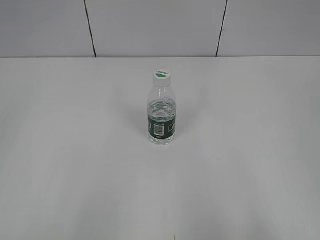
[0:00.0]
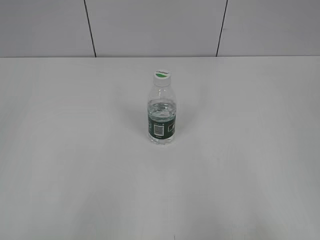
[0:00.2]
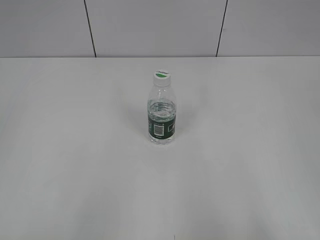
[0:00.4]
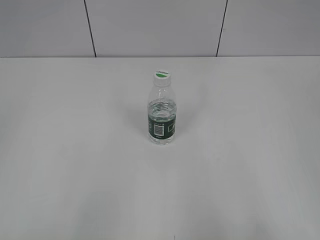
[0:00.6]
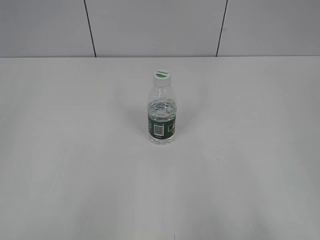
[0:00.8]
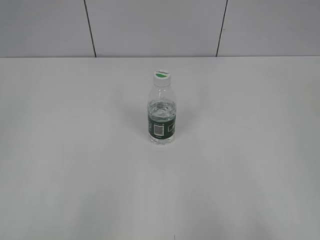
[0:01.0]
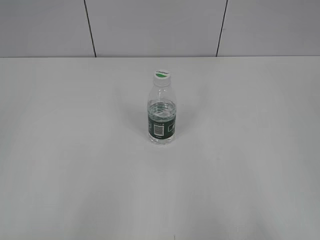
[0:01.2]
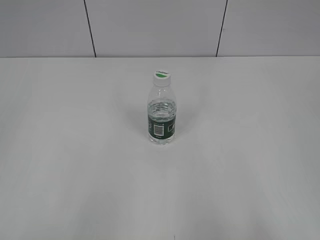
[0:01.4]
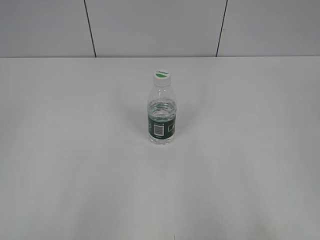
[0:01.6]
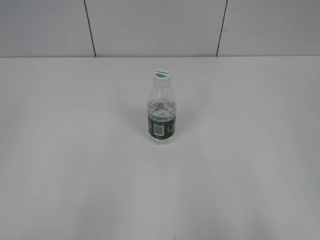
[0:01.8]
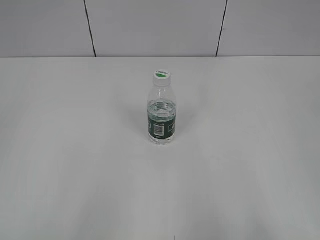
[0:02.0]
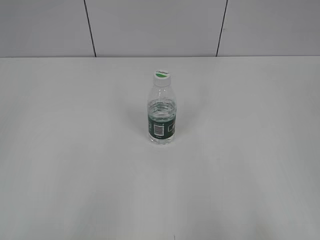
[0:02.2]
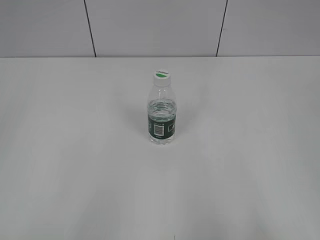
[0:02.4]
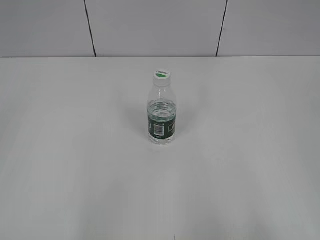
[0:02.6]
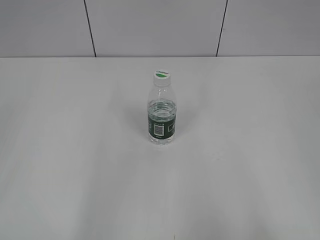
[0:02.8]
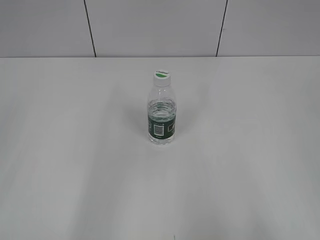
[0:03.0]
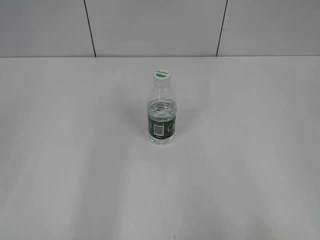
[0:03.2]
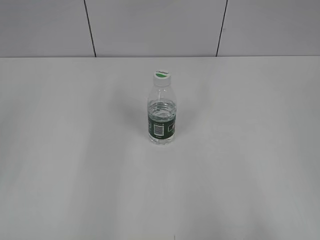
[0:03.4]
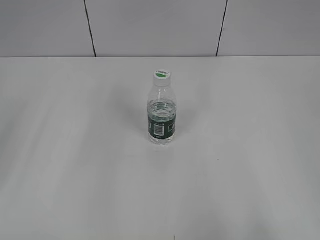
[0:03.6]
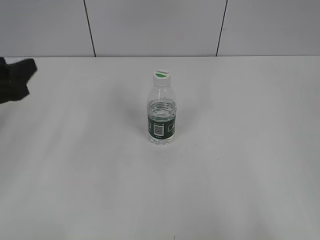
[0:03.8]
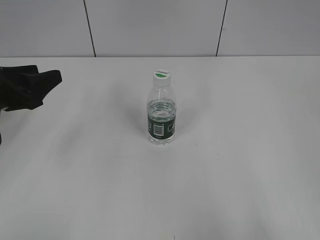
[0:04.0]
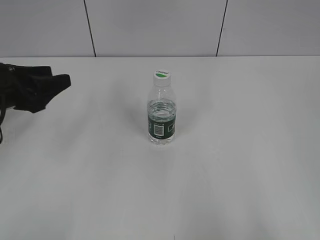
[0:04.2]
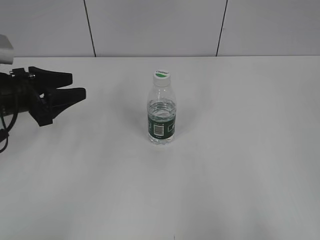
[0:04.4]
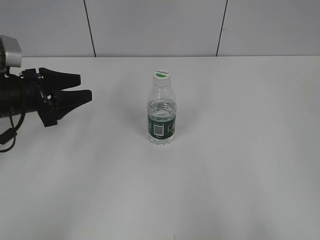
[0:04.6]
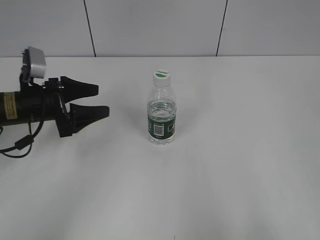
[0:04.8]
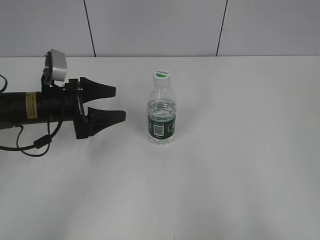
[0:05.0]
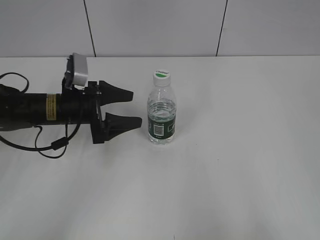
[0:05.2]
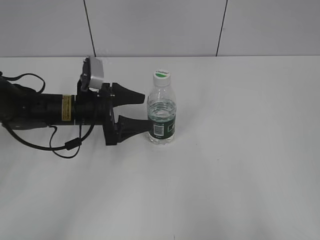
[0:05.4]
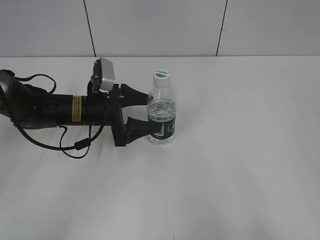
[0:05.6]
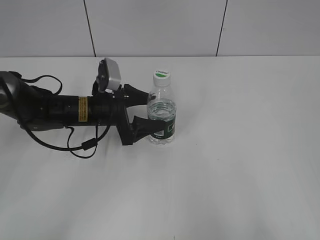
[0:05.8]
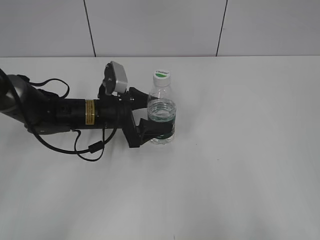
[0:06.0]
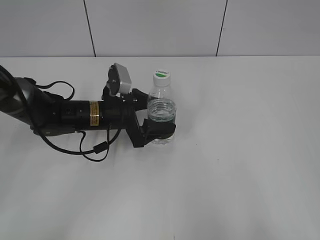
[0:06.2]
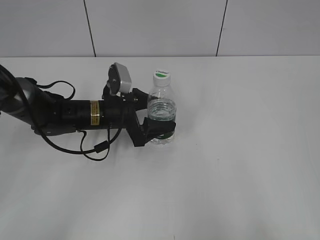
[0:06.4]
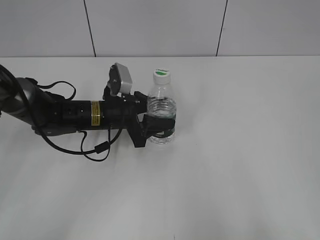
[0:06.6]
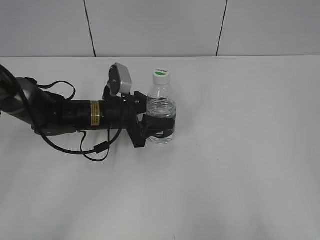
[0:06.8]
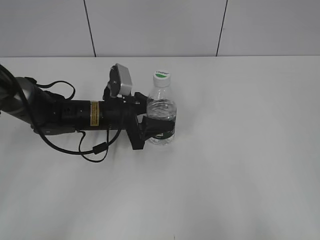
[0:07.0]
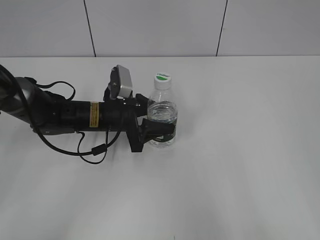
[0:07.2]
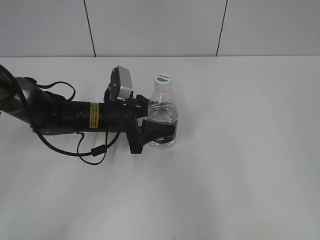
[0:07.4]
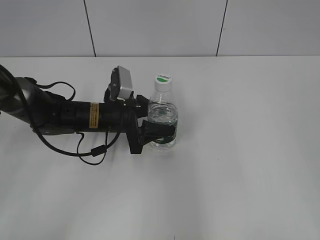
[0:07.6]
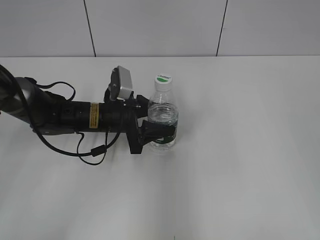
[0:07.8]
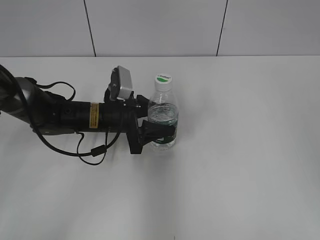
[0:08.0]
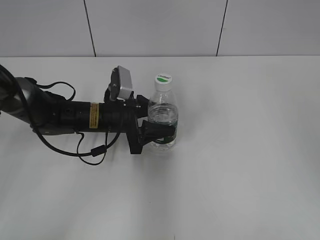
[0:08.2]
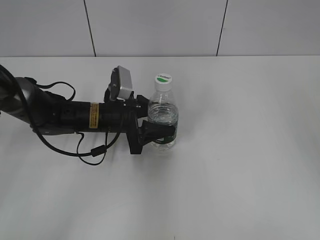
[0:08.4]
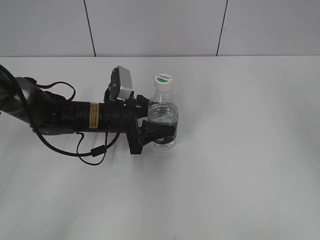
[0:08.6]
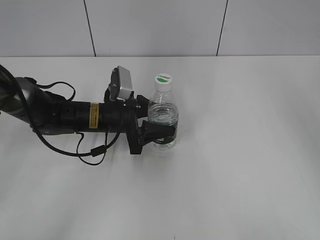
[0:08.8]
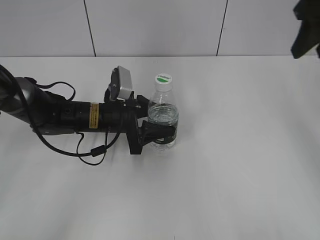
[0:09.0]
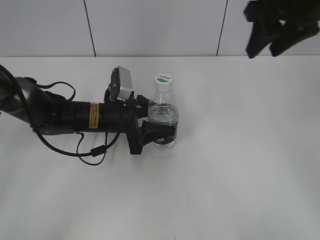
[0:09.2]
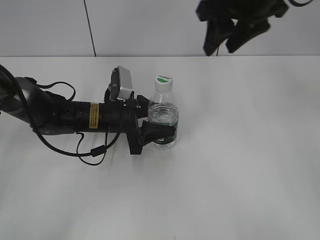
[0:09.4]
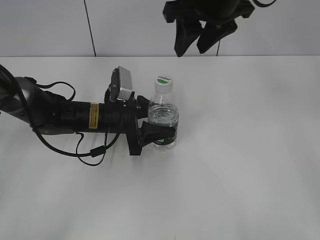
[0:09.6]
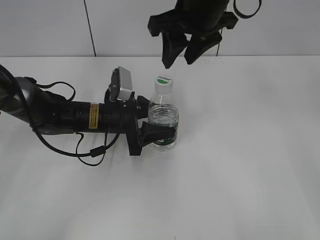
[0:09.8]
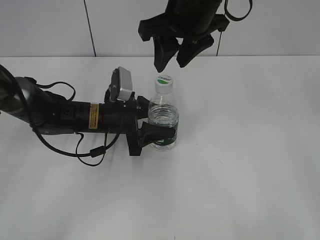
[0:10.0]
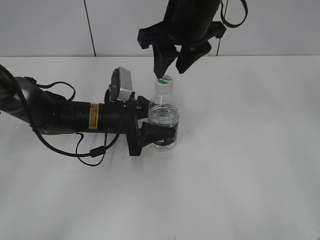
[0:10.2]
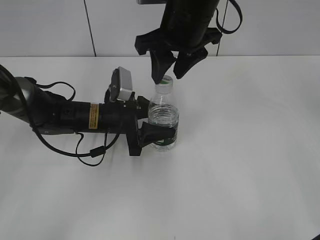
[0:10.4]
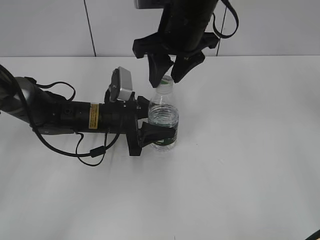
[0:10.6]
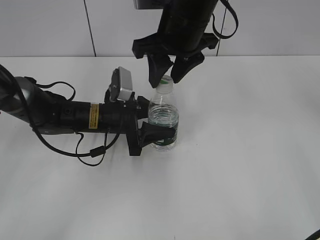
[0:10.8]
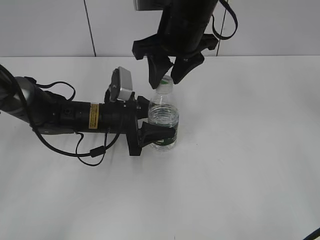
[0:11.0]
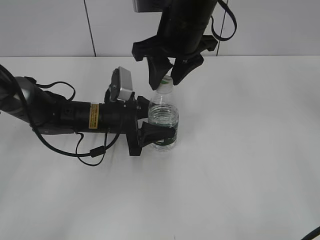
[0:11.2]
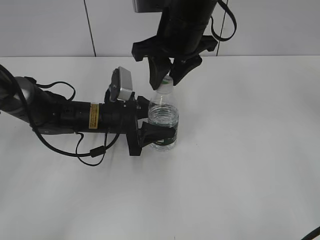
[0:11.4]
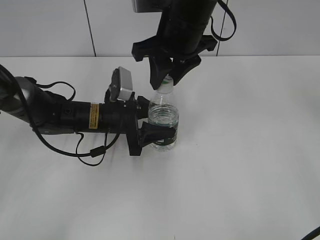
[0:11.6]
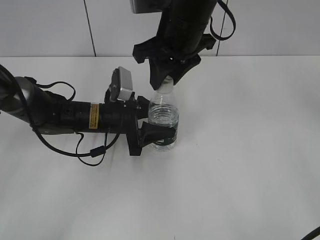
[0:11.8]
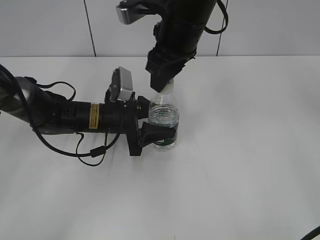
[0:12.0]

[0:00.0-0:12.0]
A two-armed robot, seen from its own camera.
Step, 0:00.0 to 0:07.8: Grasp the bottle and move it to the center of the table with the left gripper.
0:03.0 to 0:04.4: The left gripper heads forward and downward, covering roughly 25 cm.
0:04.4 to 0:06.0: The left gripper heads to the right and downward, covering approximately 15 cm, and opens up.
0:06.0 to 0:07.6: The right gripper shifts about 10 cm forward. The left gripper closes its fingers.
0:07.6 to 0:09.0: The right gripper is displaced forward by some 25 cm, and closes up.
0:09.0 to 0:10.4: The right gripper heads to the left, covering roughly 20 cm.

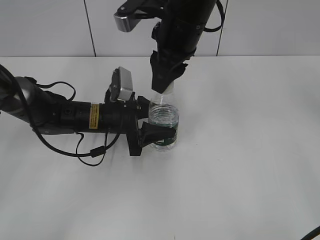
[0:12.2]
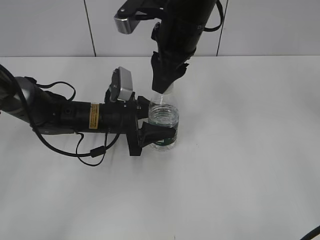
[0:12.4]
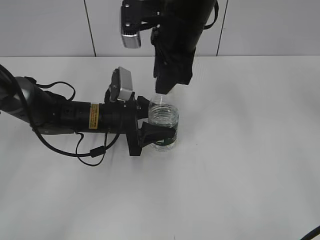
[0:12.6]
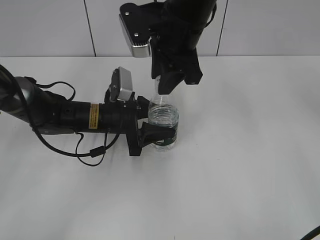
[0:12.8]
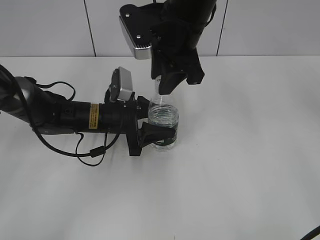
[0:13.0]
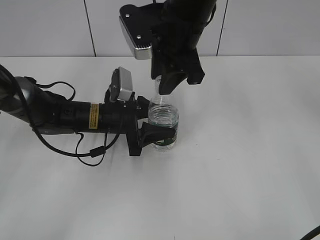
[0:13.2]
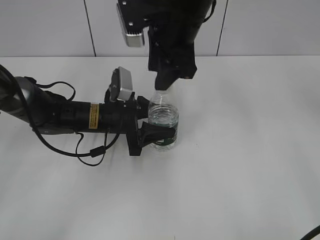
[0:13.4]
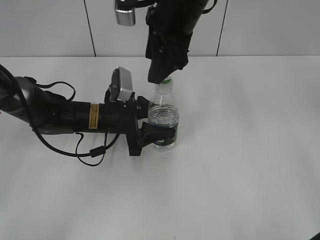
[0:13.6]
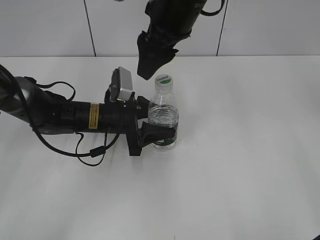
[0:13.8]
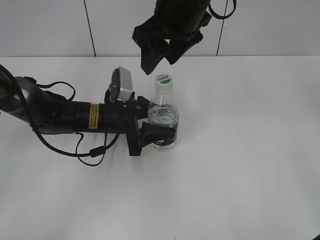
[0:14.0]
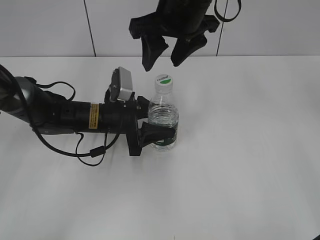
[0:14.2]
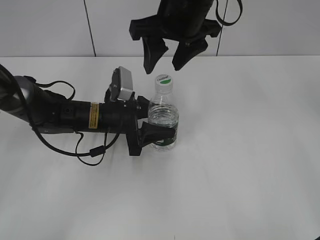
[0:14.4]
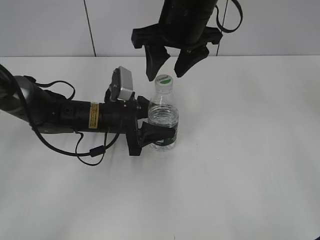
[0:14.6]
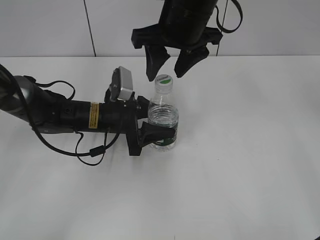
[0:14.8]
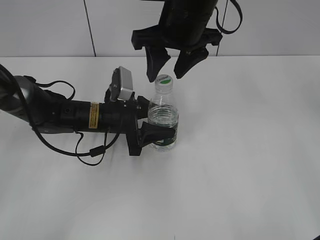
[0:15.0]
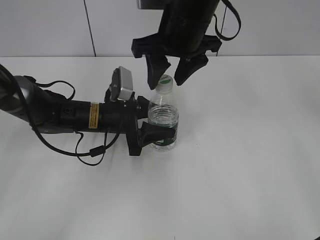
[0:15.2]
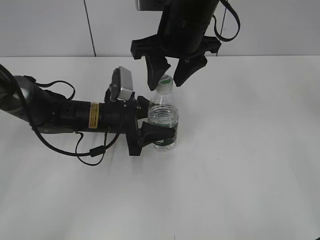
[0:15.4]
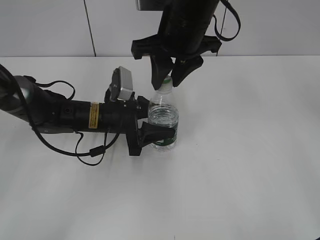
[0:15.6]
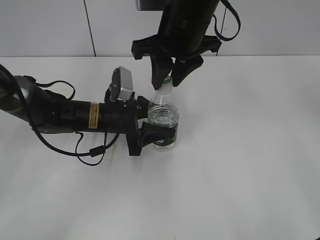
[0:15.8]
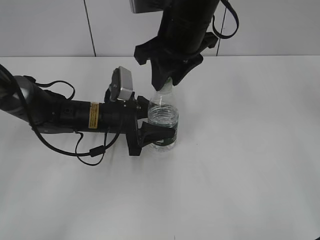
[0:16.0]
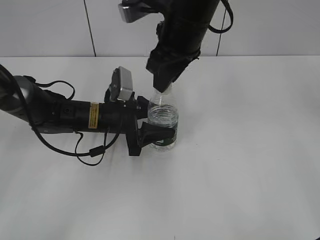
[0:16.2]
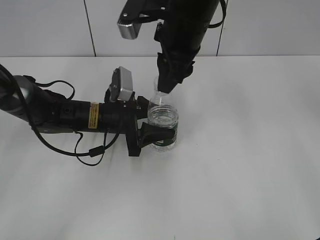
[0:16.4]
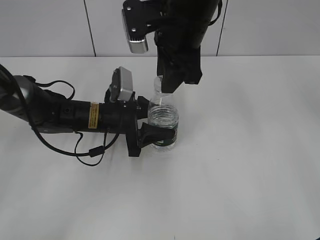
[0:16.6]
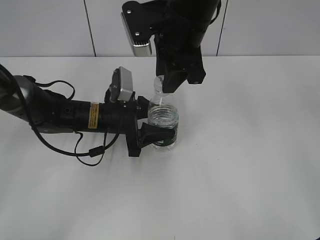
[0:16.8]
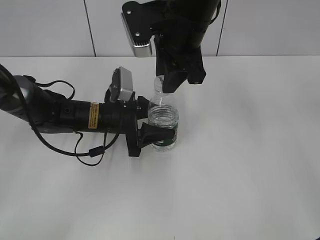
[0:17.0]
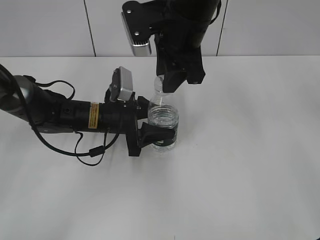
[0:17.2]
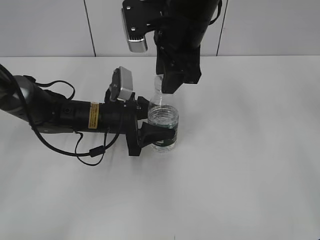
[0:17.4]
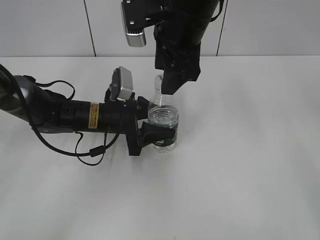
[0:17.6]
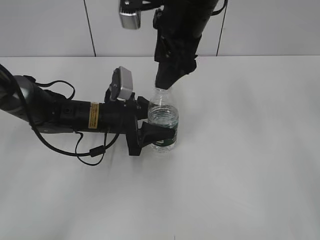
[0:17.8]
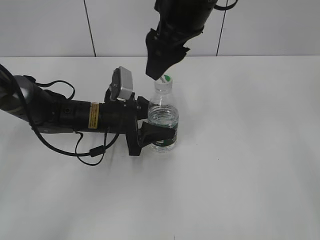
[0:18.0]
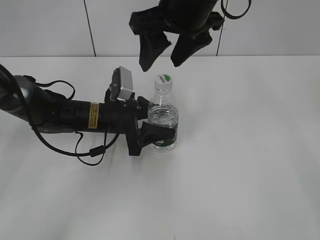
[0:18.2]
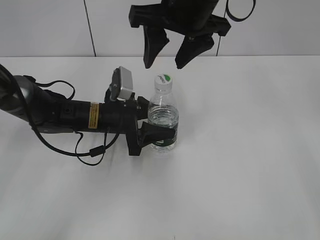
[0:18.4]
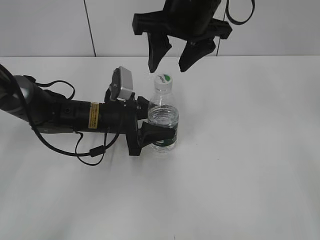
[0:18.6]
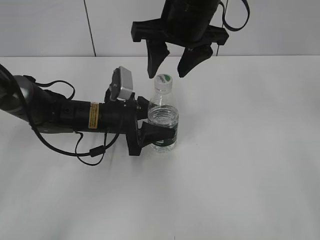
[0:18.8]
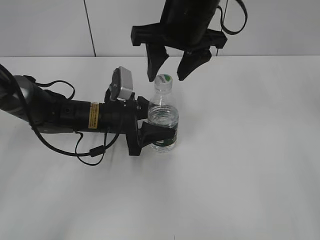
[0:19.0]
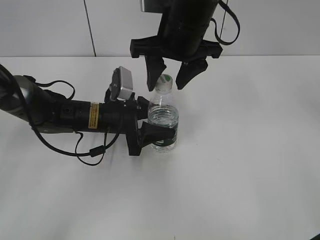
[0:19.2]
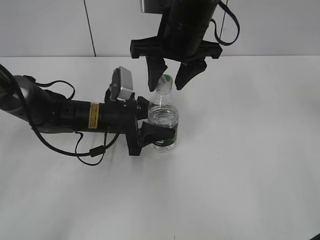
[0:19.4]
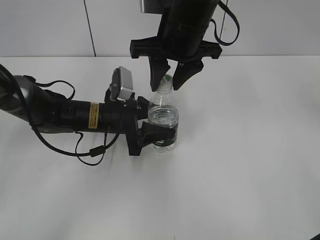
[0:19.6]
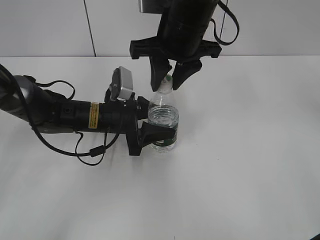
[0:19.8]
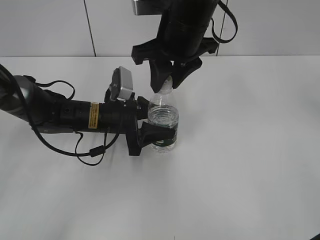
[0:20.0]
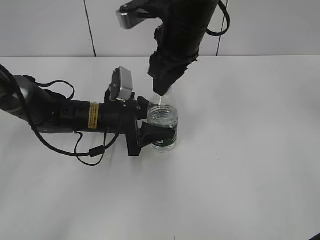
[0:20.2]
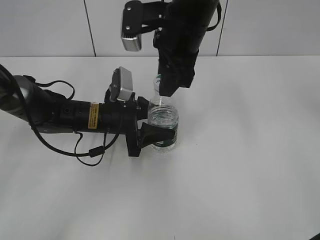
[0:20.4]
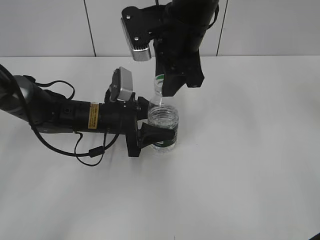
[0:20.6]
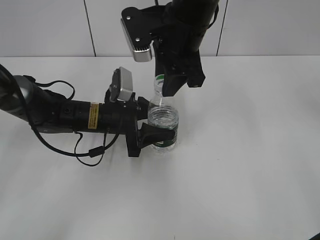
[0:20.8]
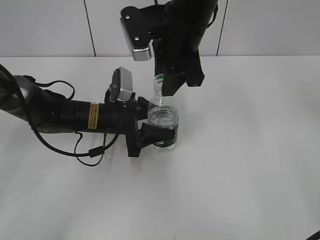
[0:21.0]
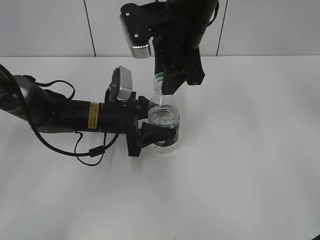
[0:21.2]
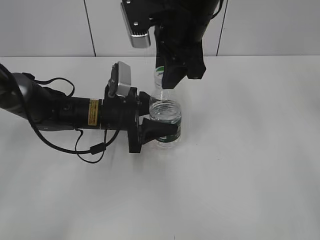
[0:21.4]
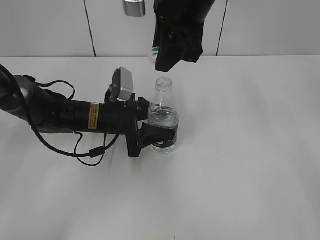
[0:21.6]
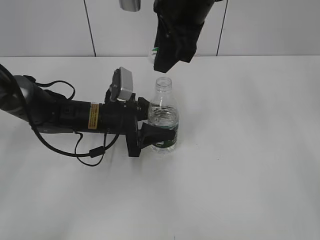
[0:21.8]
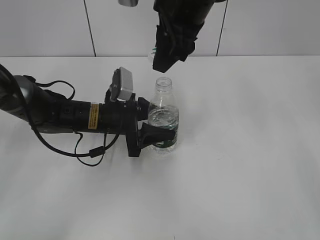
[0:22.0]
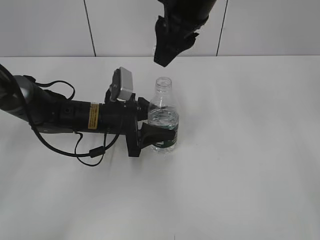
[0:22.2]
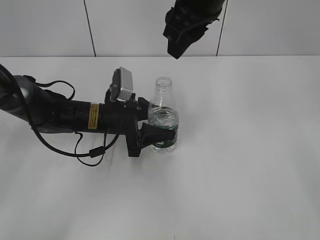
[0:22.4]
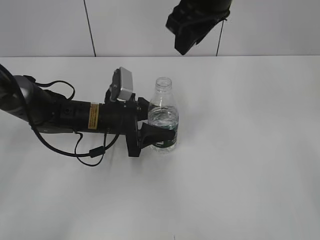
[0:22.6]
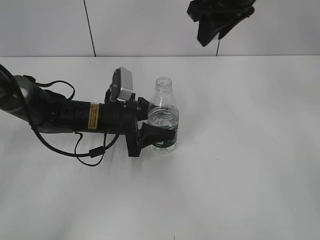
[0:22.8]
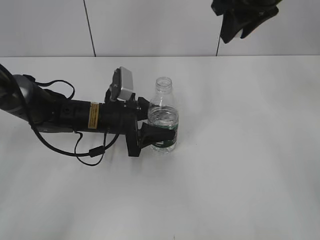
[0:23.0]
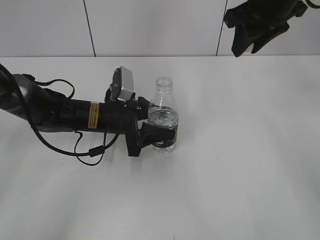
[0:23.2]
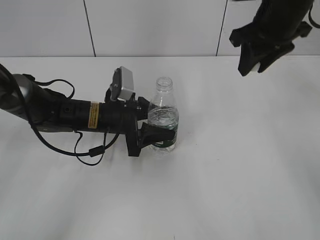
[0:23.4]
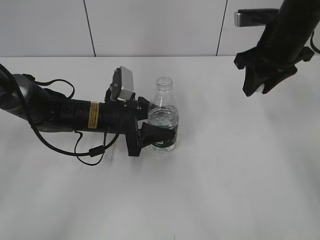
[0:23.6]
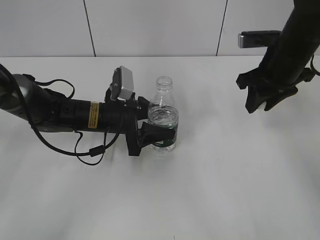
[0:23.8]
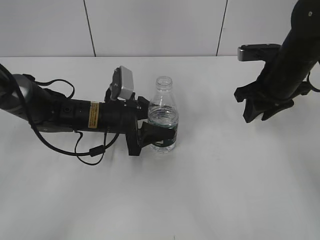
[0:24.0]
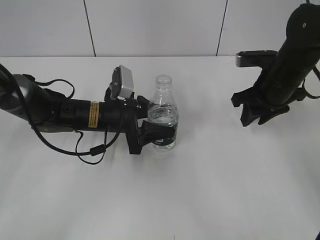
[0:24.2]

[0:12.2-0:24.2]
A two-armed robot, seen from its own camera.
Step, 0:12.2 to 0:21.8: Unscrew the bottle cap with the right gripper while holding the bottle with the left gripper.
0:12.2 to 0:13.8: The right gripper opens up.
0:15.2 to 0:16.6: The right gripper closes up.
0:16.6 to 0:18.2: The right gripper opens its fingers.
0:18.2 to 0:19.8: The right gripper moves some 5 cm, and closes its fingers.
0:21.2 to 0:22.6: The right gripper goes about 5 cm upward.
0:22.6 to 0:24.2: The right gripper is displaced downward and to the right by approximately 20 cm.
